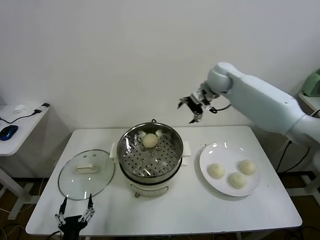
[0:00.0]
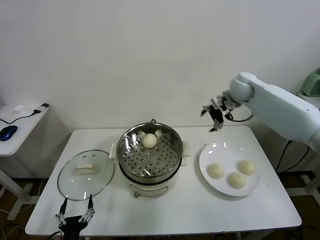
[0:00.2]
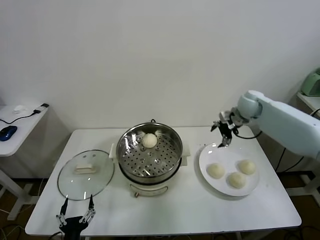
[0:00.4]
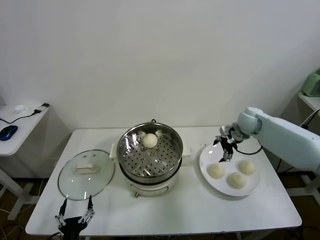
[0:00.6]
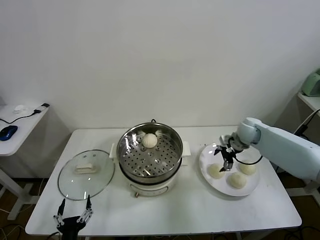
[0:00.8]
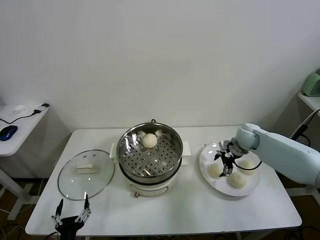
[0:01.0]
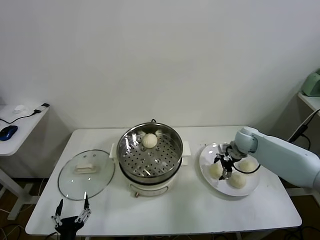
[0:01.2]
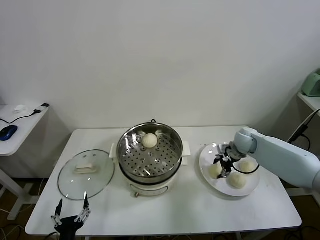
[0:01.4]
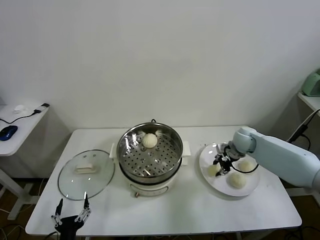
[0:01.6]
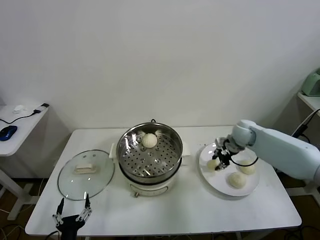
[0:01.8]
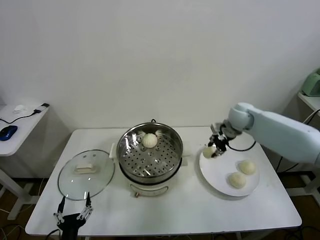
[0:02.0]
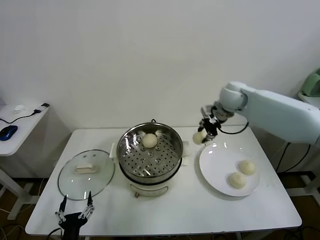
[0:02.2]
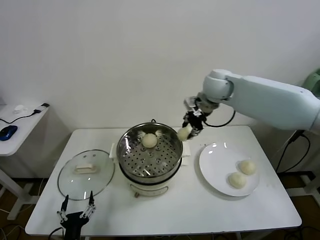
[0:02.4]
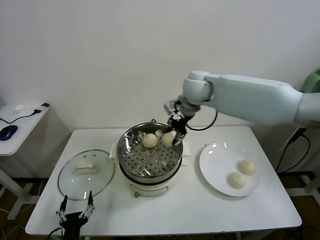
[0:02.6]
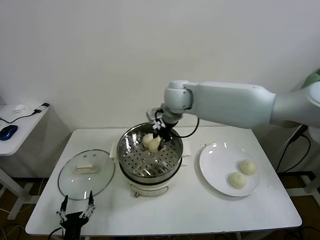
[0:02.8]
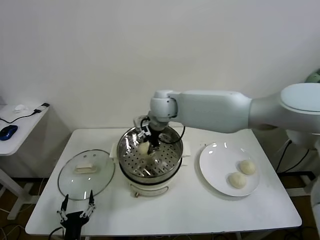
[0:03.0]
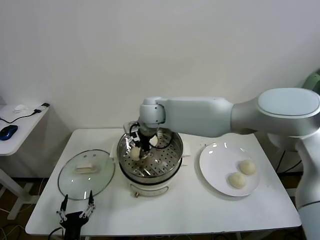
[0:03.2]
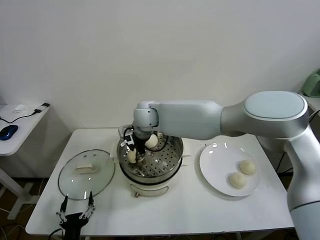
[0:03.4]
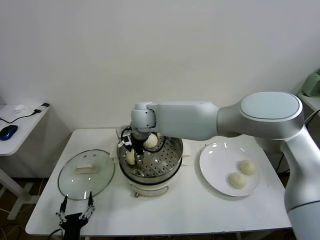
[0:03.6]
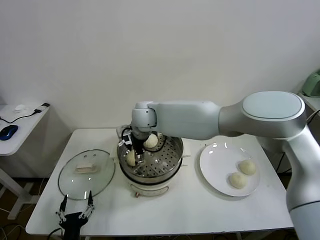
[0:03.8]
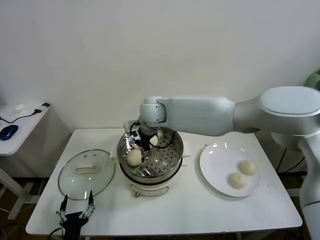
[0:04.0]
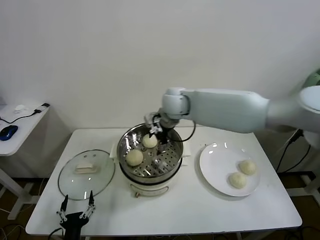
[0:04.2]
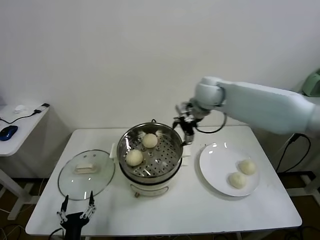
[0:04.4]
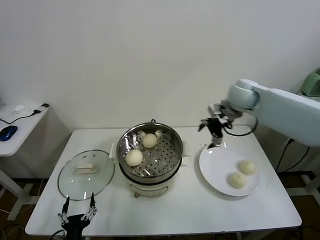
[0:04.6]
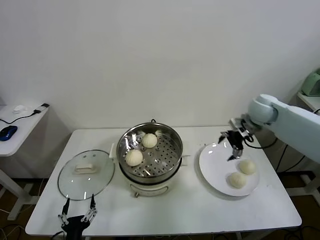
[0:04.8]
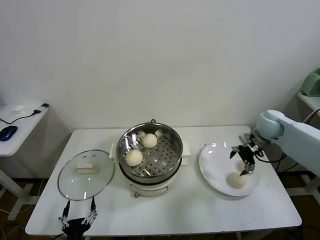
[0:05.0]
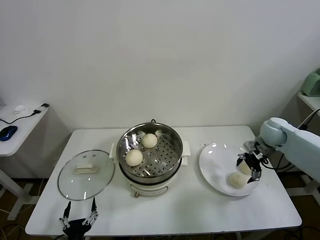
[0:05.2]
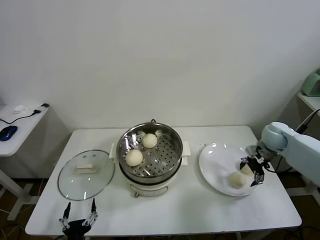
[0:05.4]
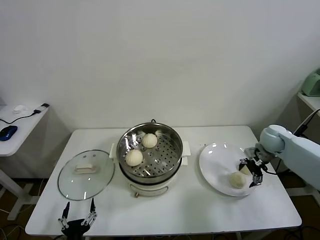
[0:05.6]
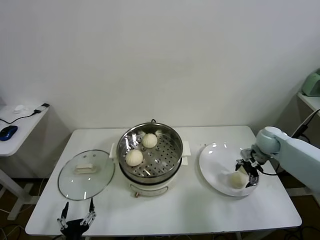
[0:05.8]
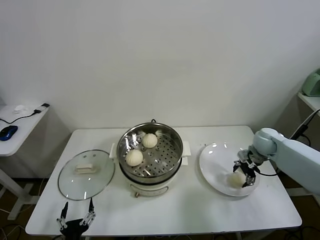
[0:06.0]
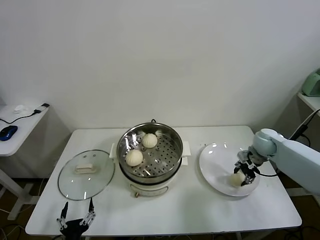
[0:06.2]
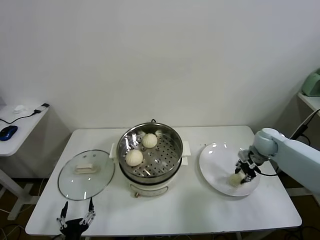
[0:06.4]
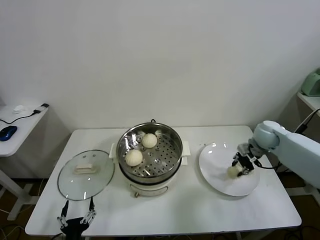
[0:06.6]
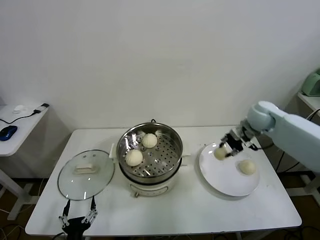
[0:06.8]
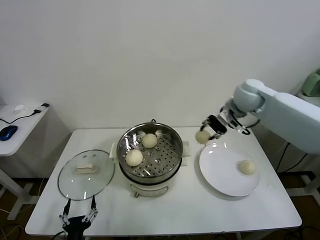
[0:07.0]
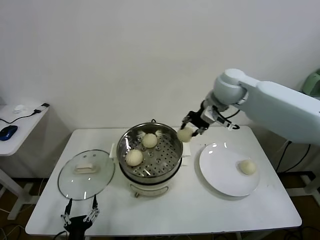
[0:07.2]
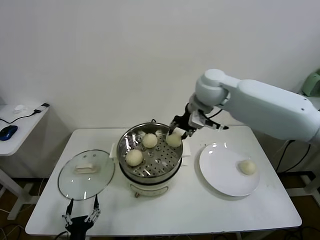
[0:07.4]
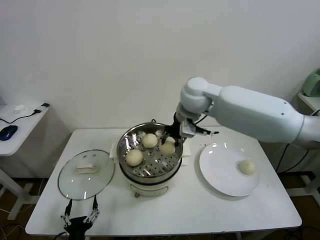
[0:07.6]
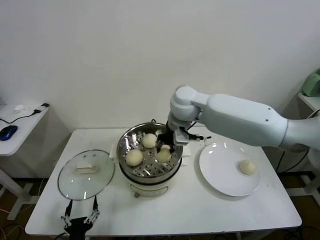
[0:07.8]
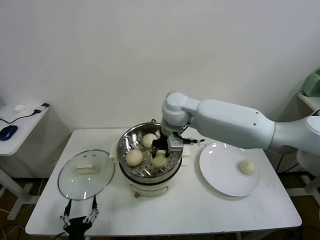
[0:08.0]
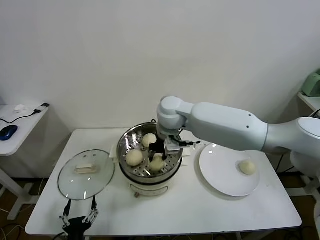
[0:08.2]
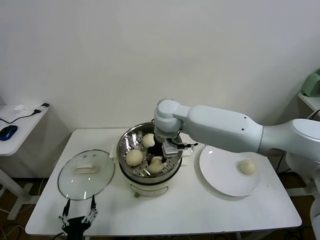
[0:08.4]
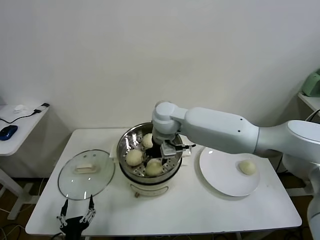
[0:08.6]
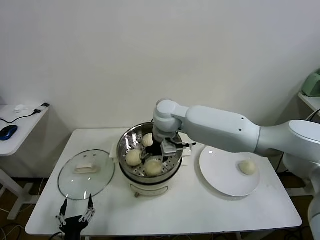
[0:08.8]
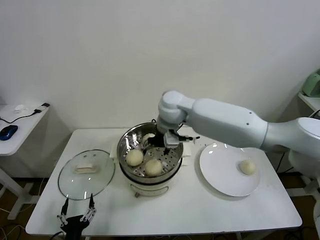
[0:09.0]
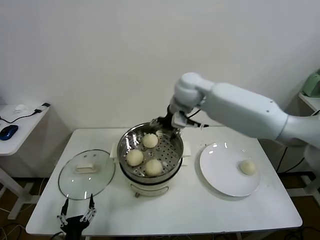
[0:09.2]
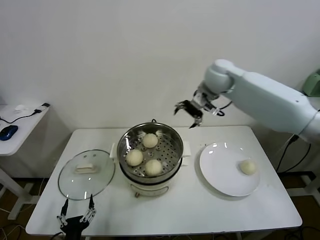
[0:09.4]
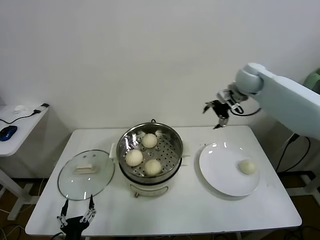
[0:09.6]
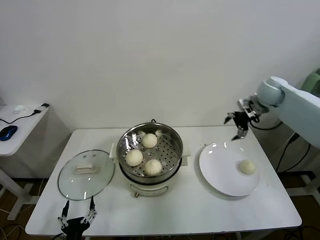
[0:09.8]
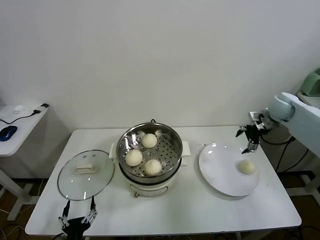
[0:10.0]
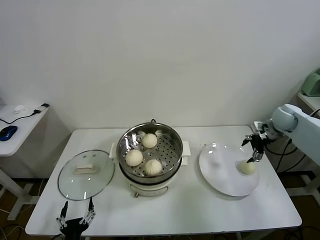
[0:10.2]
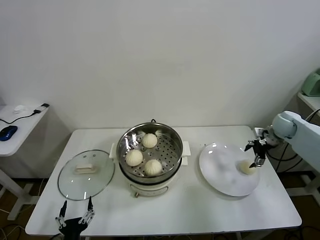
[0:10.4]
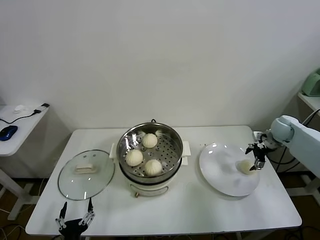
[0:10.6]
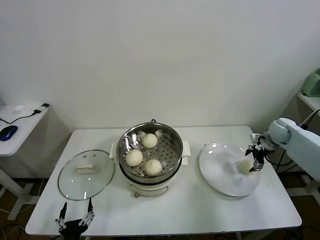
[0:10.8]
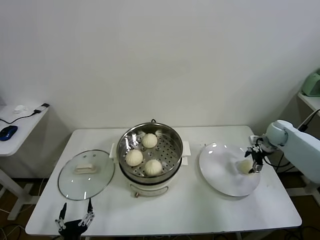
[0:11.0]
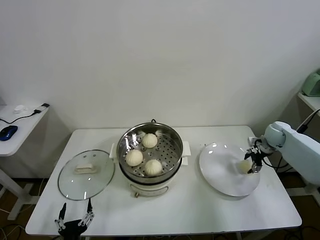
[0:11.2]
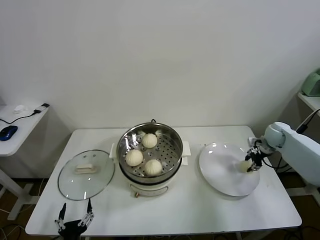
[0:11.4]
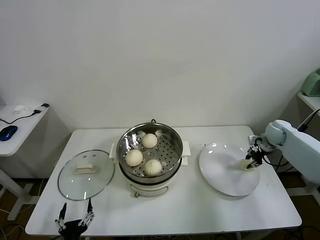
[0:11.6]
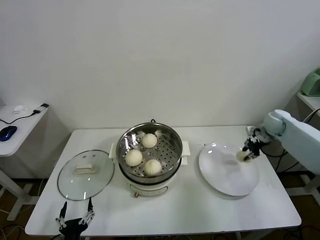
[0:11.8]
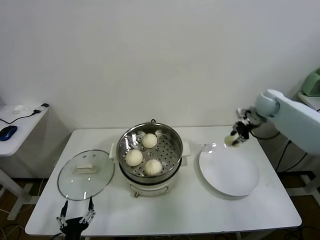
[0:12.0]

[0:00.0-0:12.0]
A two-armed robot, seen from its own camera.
Task of the whole recording: take steamed baozi put them in steamer.
Step, 0:00.0 to 0:01.6: Grasp the baozi in the plate with right gripper.
Step, 0:01.8 to 0:03.8: Place the baozi on the steamer with right gripper.
Step, 0:04.0 to 0:06.4: Grasp the baozi in the plate with right gripper.
Step, 0:06.6 to 0:08.8: Place the baozi on the steamer with right gripper.
Step, 0:09.0 to 0:11.4: Grasp the baozi in the plate with right gripper.
0:00.0 to 0:01.6: The right gripper is displaced downward by some 20 cm, and closes its fingers.
0:01.6 to 0:03.0: The right gripper shifts some 35 cm to the left and upward.
0:03.0 to 0:04.4: The right gripper shifts about 20 cm to the right, and opens its fingers.
0:04.4 to 0:06.0: The right gripper is displaced to the right and downward by some 30 cm.
0:06.0 to 0:07.6: The right gripper goes some 35 cm to the left and upward, and closes up.
0:07.6 to 0:09.0: The right gripper opens up.
0:09.0 to 0:10.4: The right gripper is displaced to the right by roughly 40 cm.
0:10.4 to 0:12.0: The right gripper moves to the left and upward, roughly 10 cm, and closes its fingers.

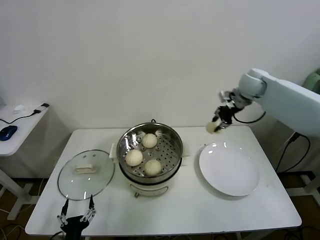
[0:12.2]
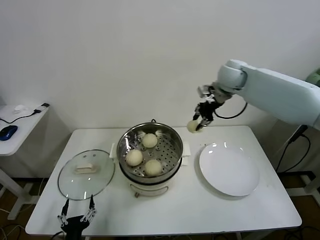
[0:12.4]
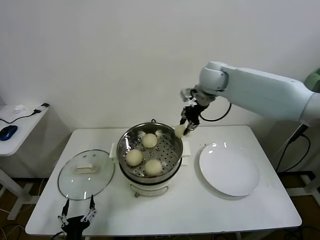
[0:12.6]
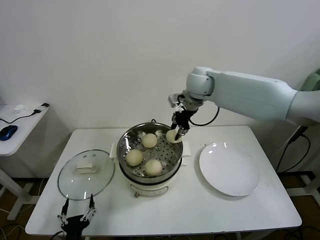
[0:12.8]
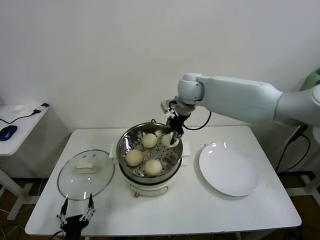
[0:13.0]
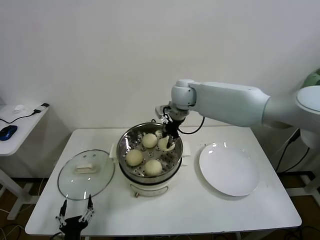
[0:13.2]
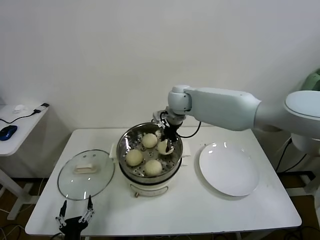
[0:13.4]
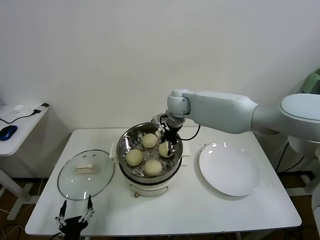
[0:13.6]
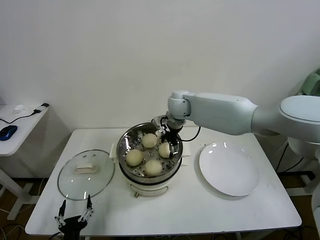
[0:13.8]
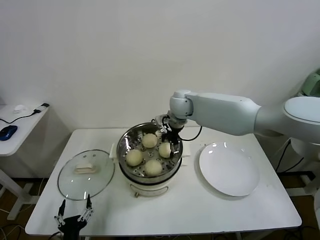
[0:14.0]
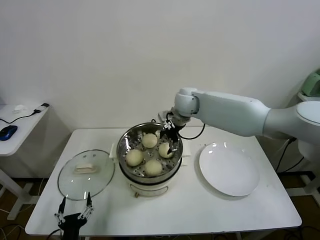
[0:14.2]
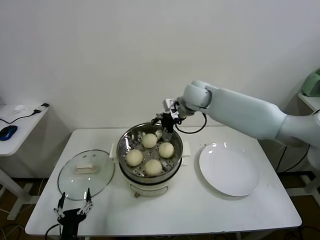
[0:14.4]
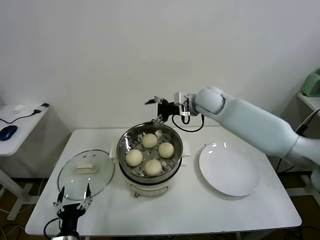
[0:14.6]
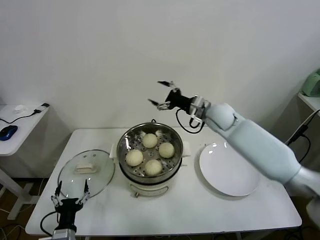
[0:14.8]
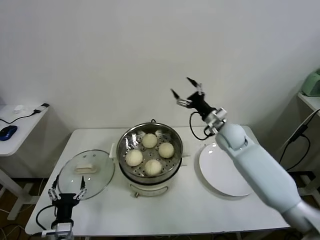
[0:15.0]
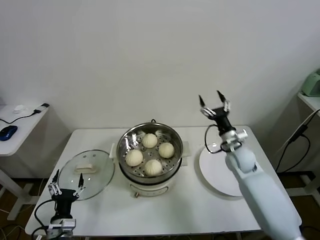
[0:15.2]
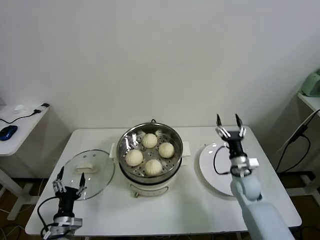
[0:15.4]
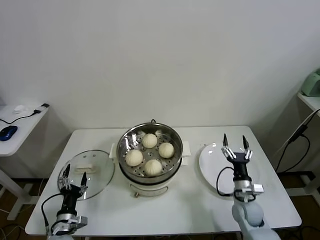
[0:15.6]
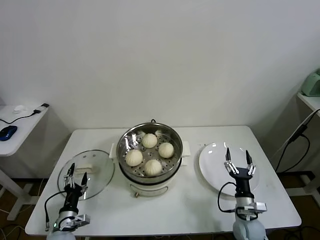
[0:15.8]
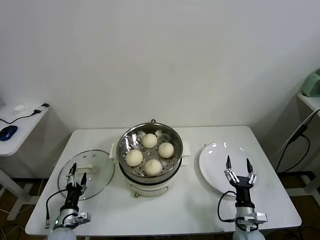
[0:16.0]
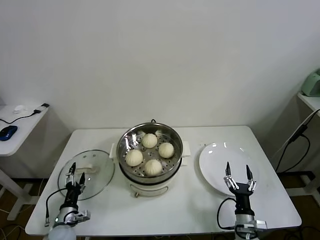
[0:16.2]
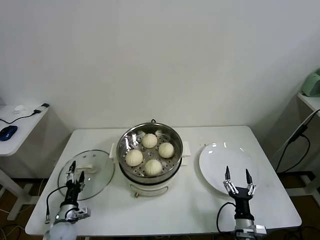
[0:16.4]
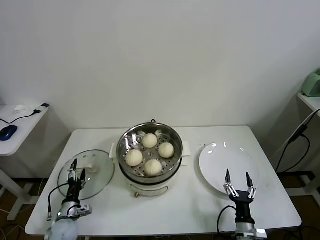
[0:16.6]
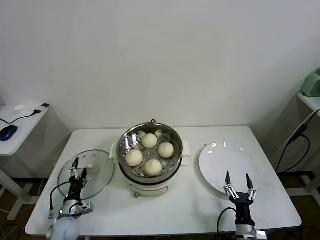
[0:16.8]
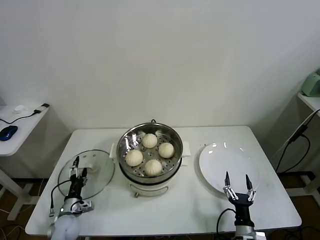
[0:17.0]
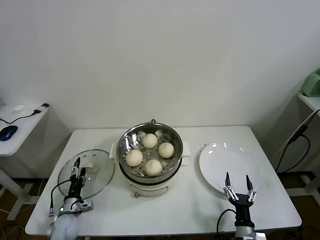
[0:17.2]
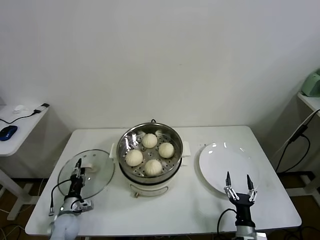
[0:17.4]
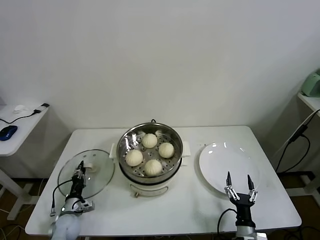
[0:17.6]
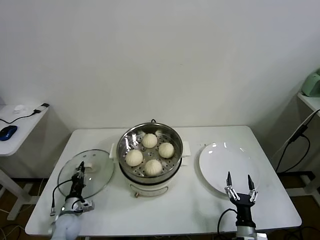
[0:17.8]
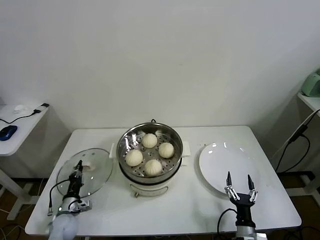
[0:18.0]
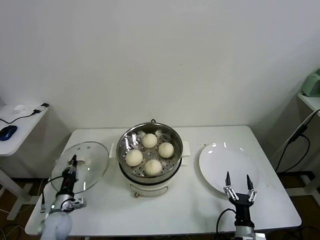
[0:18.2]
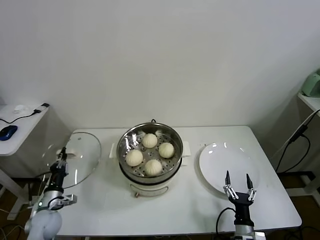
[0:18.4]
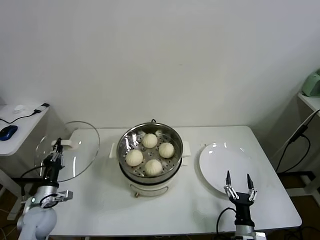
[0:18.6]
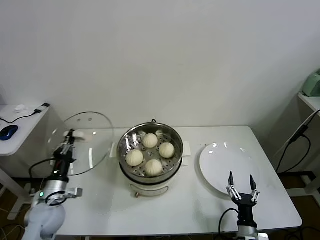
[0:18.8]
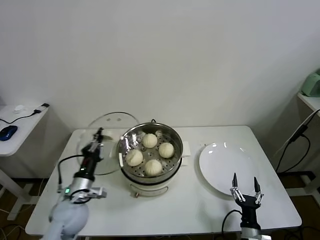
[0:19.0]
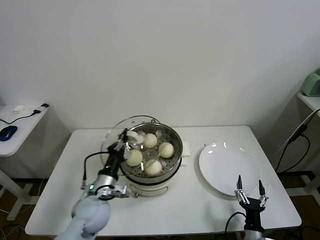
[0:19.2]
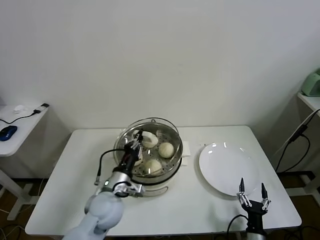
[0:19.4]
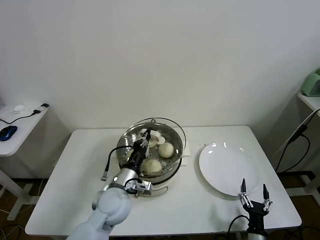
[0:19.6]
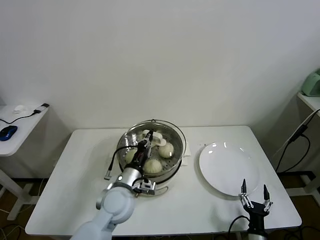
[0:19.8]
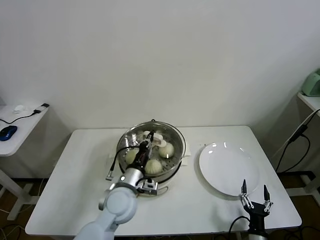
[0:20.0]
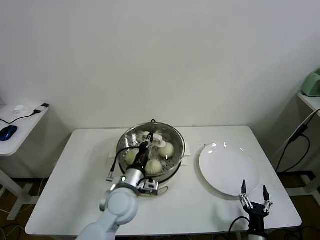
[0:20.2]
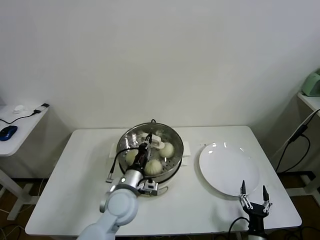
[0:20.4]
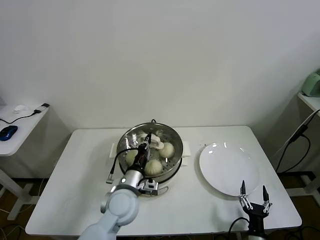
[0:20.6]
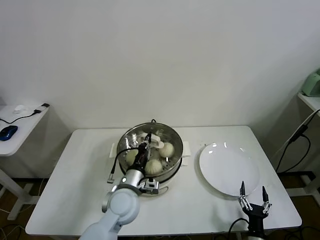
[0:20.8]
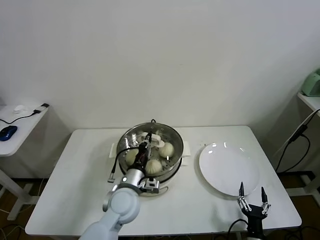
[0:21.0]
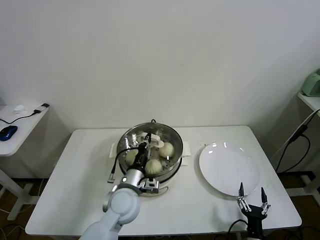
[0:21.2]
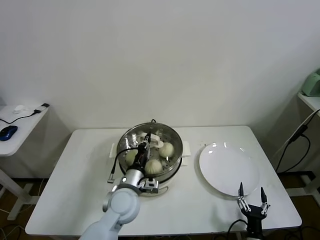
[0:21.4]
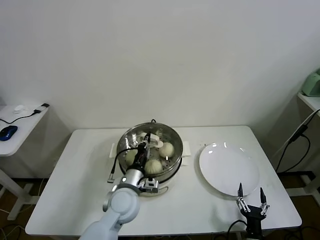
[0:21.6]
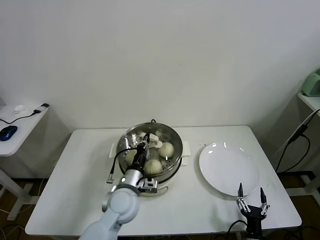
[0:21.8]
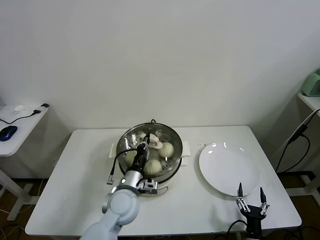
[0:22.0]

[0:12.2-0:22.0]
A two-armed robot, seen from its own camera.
Task of the whole recording: take steamed baozi put them in steamer.
Step, 0:12.2 to 0:14.0: Place the baozi on the steamer with right gripper.
Step, 0:14.2 to 0:17.8: Grasp the pot lid with left gripper.
0:12.2 to 0:13.6: The right gripper is displaced to the left by approximately 25 cm, and opens its fingers.
0:13.6 to 0:15.0: The right gripper shifts about 20 cm to the right, downward and backward, and opens up. The left gripper shifts some 5 cm forward.
0:15.0 to 0:16.4: The right gripper travels backward and downward by approximately 40 cm, while the left gripper travels forward, downward and to the left by about 15 cm.
0:16.4 to 0:17.8: The left gripper closes up.
0:17.8 to 0:19.2: The left gripper shifts approximately 25 cm upward and to the right.
0:19.2 to 0:20.6: The left gripper is displaced to the right by roughly 10 cm.
0:20.6 to 0:22.0: There are only small adjustments of the grippers.
